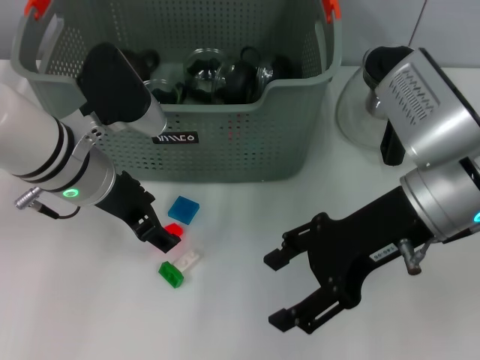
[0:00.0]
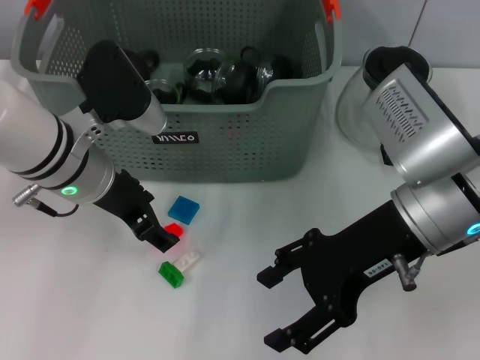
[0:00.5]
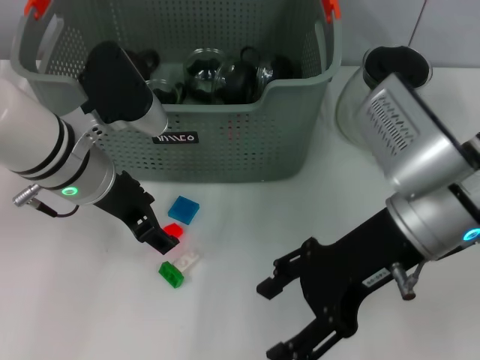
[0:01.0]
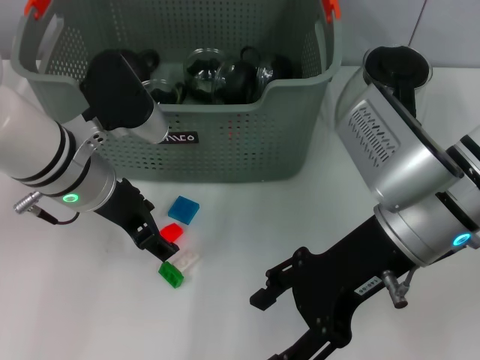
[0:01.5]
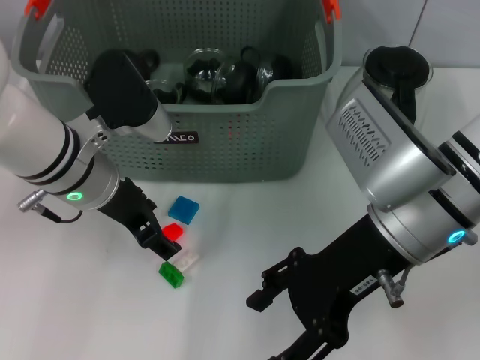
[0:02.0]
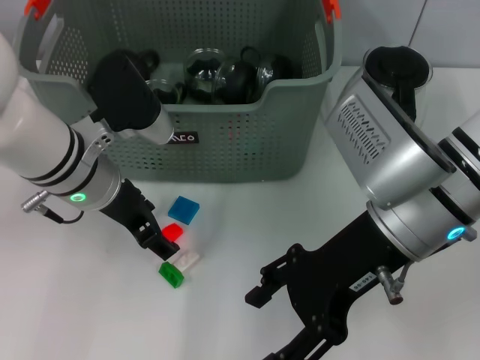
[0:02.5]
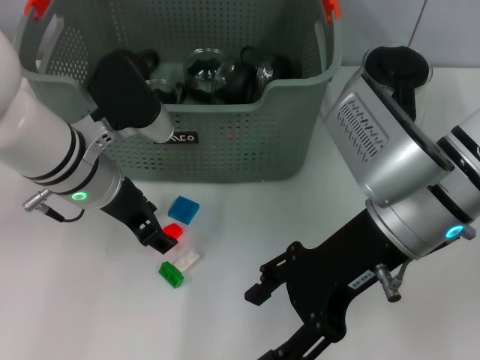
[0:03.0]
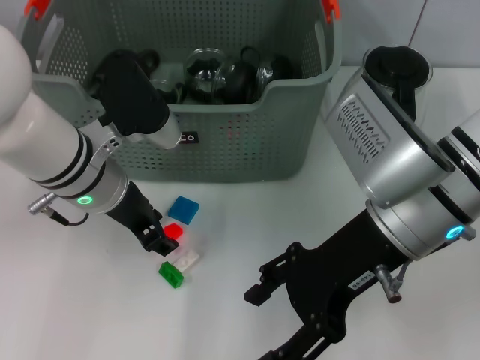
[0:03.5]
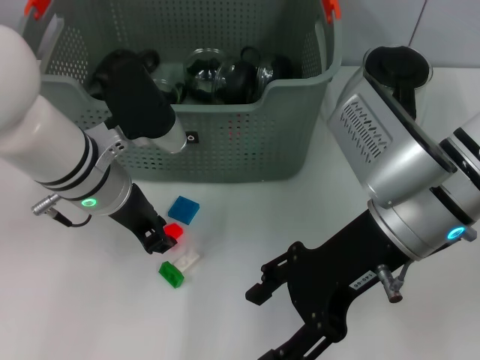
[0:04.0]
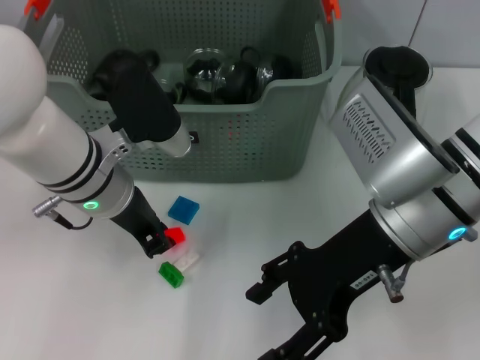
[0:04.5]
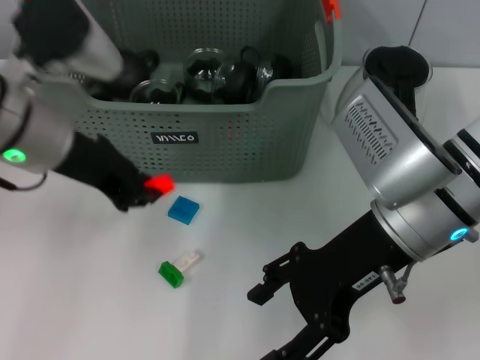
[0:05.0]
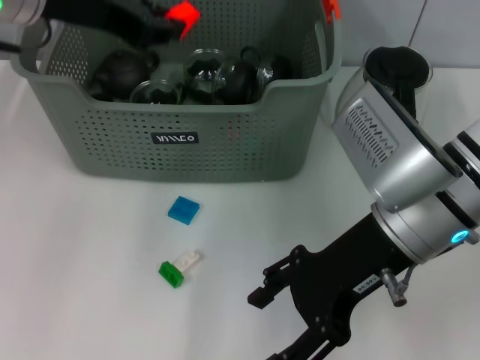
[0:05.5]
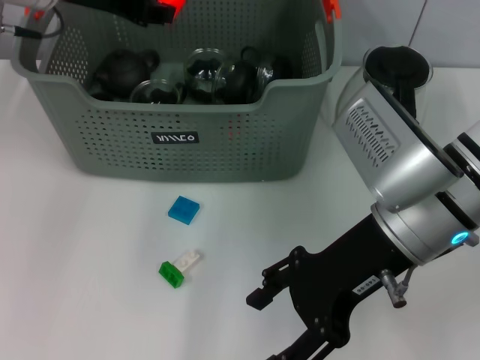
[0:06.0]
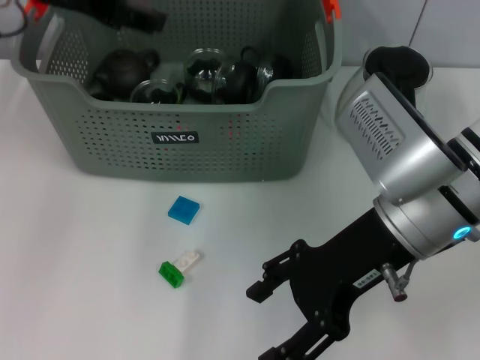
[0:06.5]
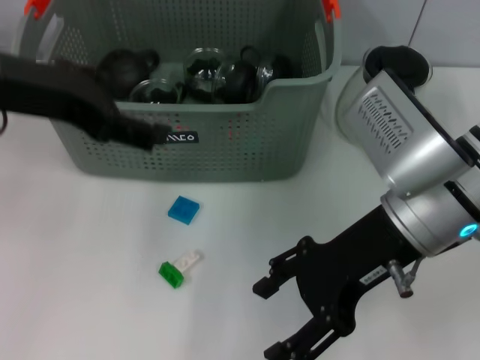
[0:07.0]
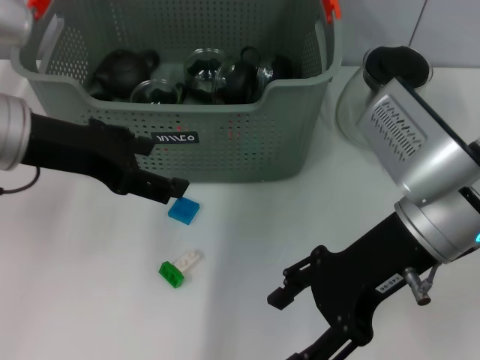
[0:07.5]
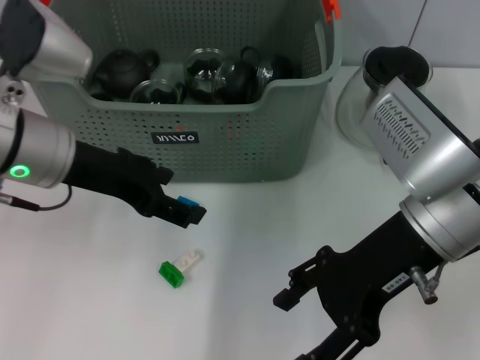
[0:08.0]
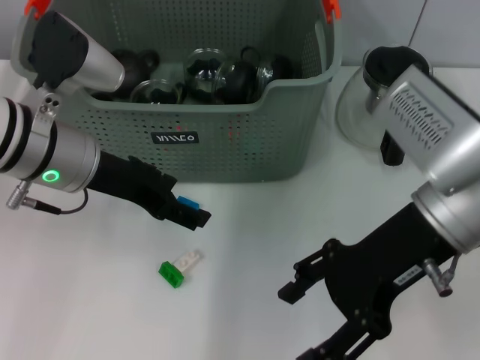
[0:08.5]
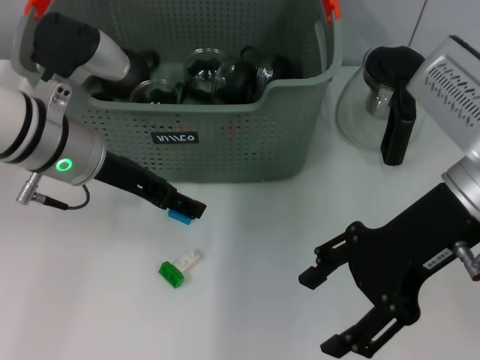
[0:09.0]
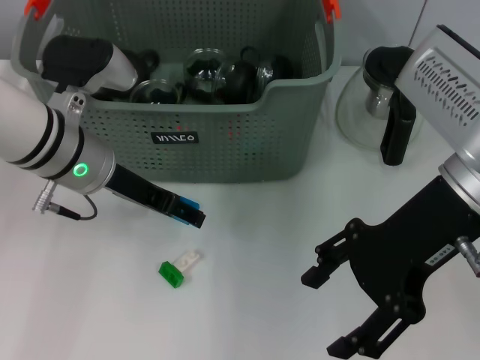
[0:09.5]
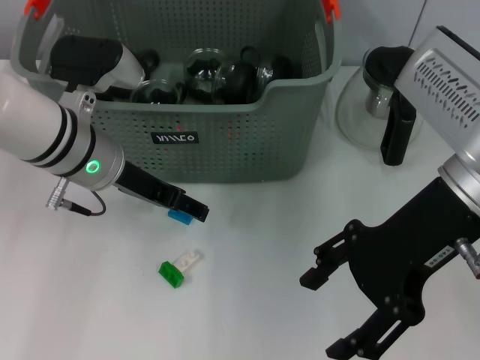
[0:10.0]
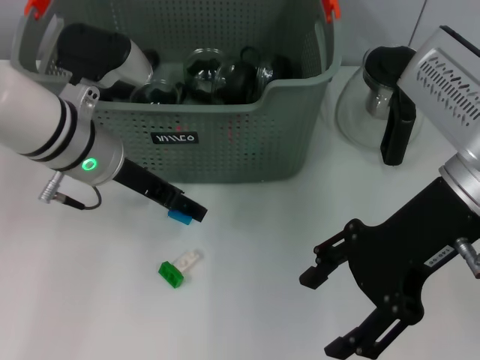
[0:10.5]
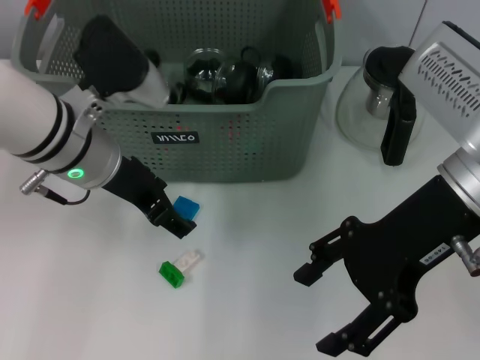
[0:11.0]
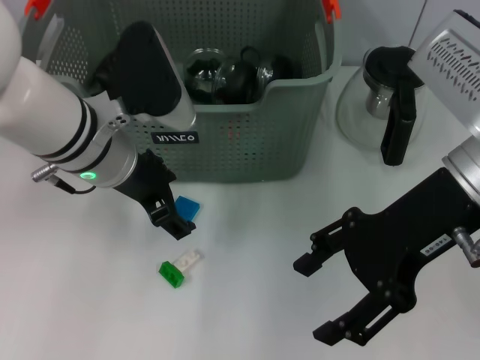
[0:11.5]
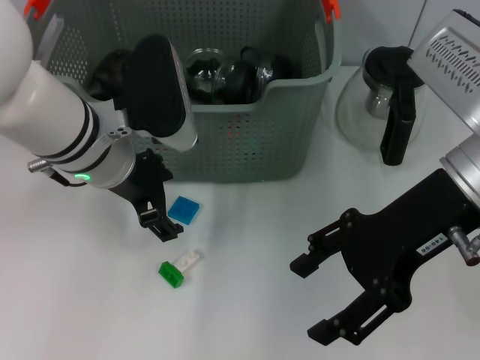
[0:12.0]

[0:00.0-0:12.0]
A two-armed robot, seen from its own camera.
Task of the whole recording: pick up the teacup on the table and place it into the storage bin, pick up the block on the table and place it into the storage bin.
Step, 0:00.0 to 0:04.0: Grasp the orange block with left gripper.
Step, 0:04.5 to 0:06.0: Place the orange block in the storage box with left gripper.
0:00.0 to 0:02.0: There are only small adjustments of the grippers.
0:02.0 to 0:04.0: The left gripper closes its fingers.
0:04.0 to 0:06.0: The left gripper heads upward and forward, covering some 15 cm.
0:06.0 to 0:08.0: The left gripper moves backward and downward, roughly 15 cm, and opens its fingers.
0:08.0 to 0:10.0: The left gripper travels downward by some 5 cm.

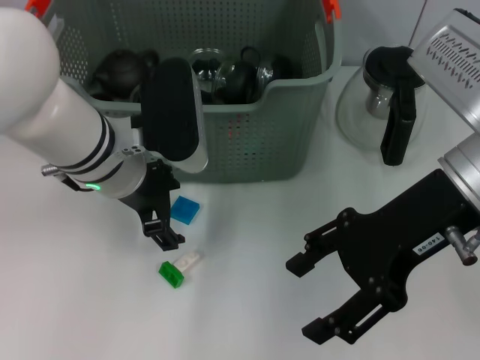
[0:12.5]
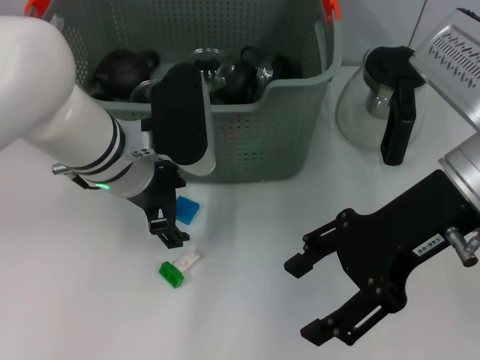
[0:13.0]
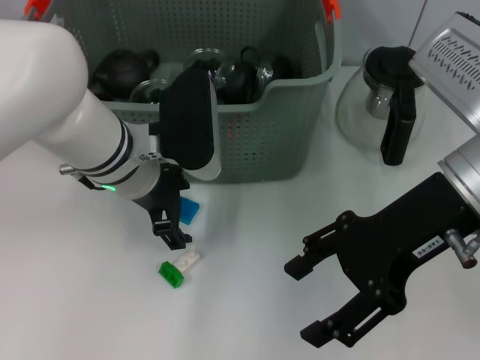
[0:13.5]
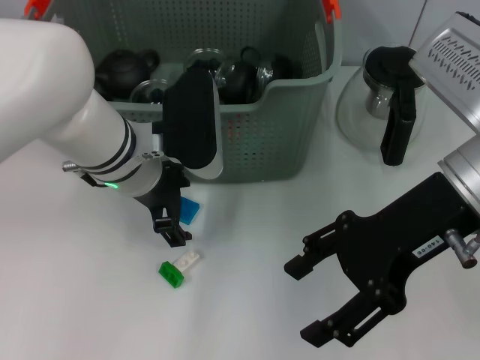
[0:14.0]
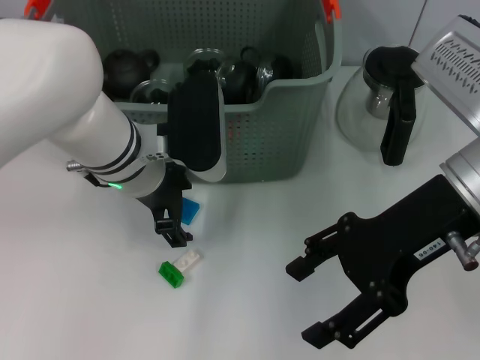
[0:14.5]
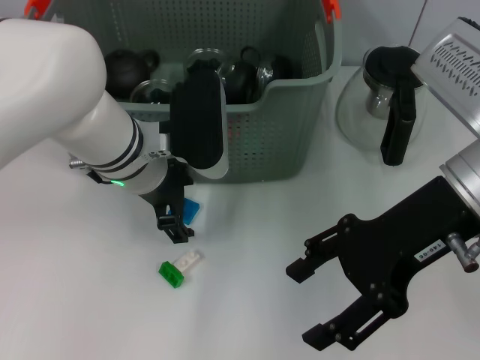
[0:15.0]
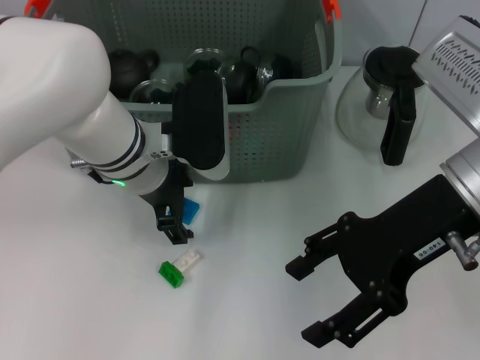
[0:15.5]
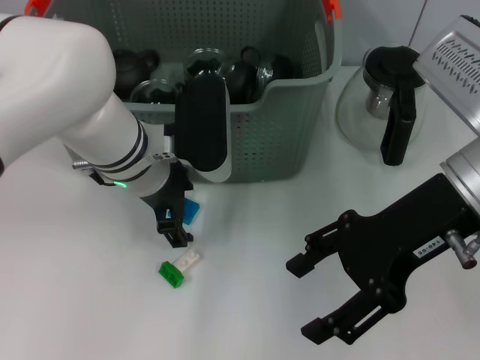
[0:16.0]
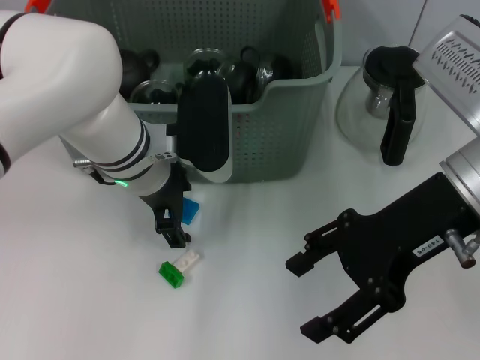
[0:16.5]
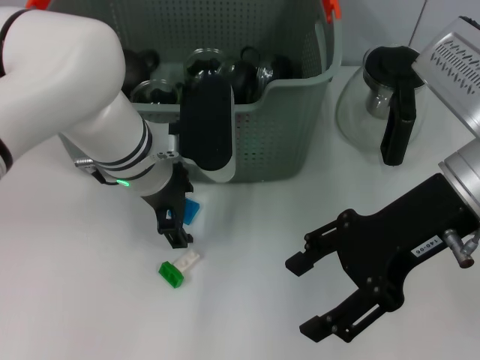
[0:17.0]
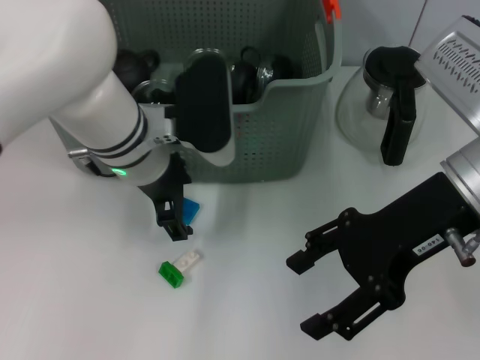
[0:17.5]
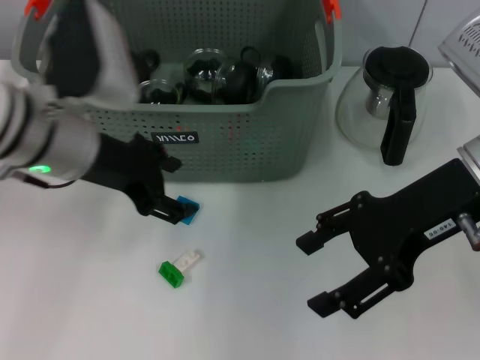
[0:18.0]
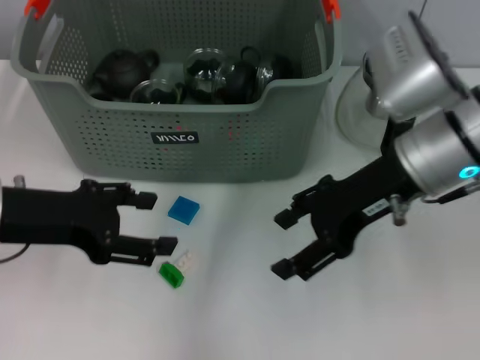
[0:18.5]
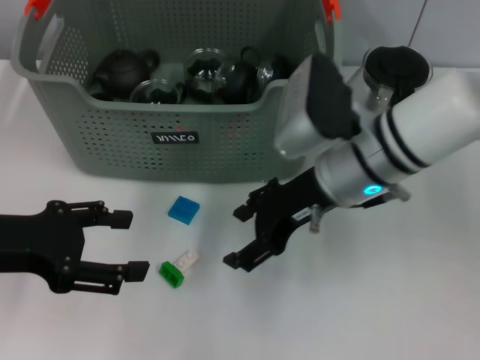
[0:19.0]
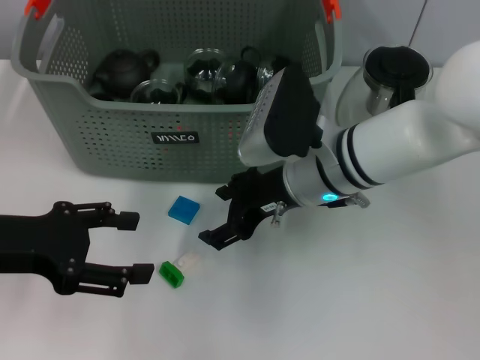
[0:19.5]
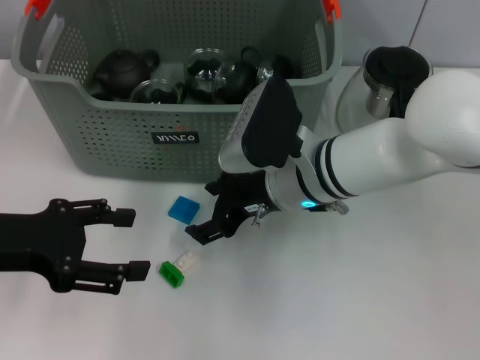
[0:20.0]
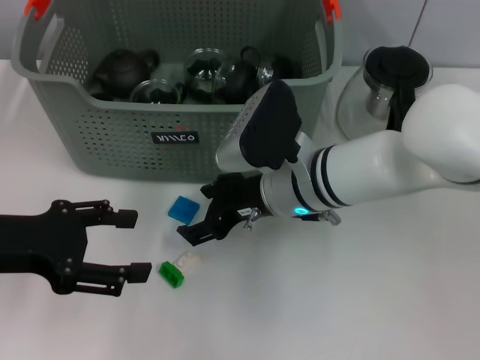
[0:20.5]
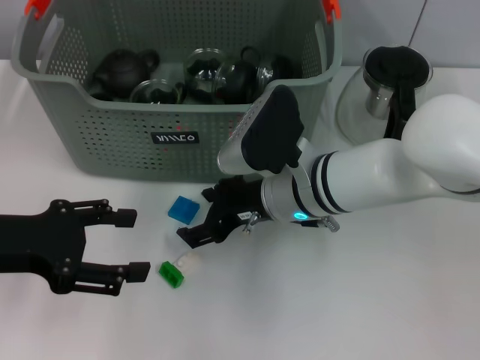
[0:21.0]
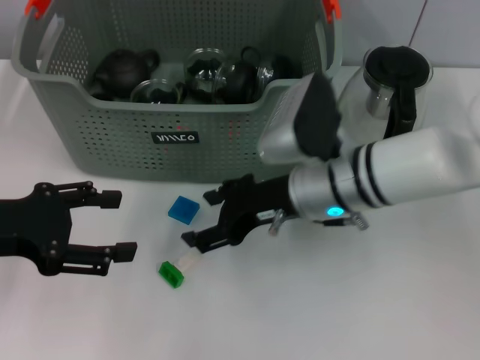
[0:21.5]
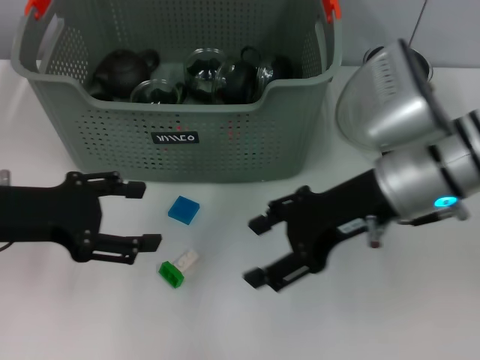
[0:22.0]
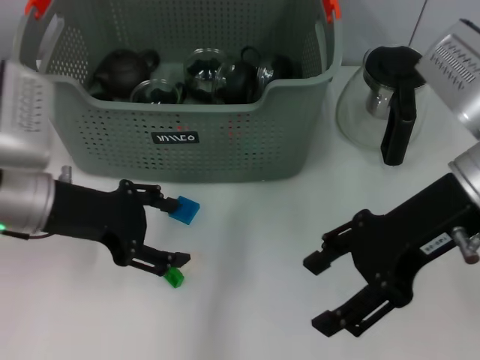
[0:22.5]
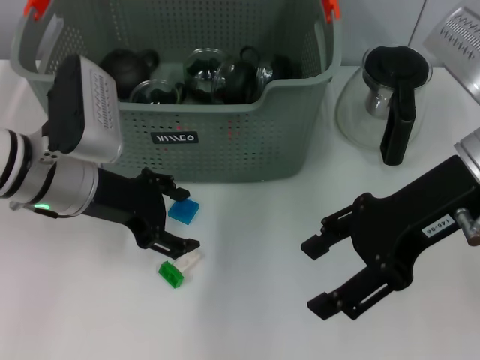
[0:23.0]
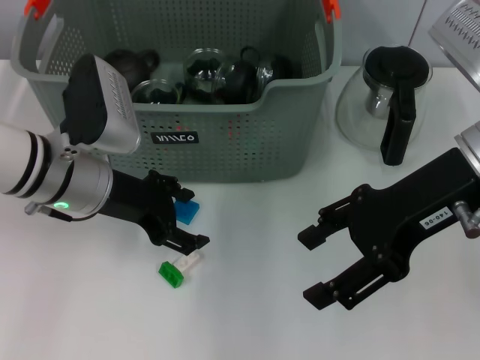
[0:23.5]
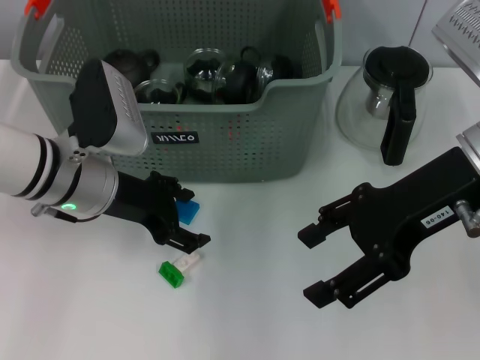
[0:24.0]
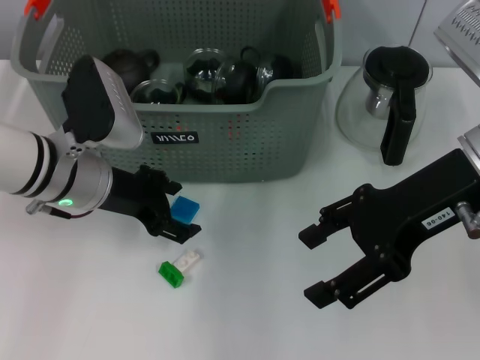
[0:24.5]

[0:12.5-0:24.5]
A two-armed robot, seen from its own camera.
Task of the whole recording: pick up the teacup on the table and place it into the storage bin, pick up the block on the table and place it into the storage bin.
0:12.5 to 0:14.5: The grippers make only small movements.
0:14.5 to 0:16.5: The two grippers keep their place.
0:16.5 to 0:18.5: The right gripper ends up roughly 5 cm from where it was. The left gripper heads to the left and backward, covering about 15 cm.
0:18.5 to 0:20.5: The right gripper is displaced to the left and downward by approximately 15 cm.
0:20.5 to 0:22.5: The right gripper moves to the right and upward, approximately 15 cm. Meanwhile the left gripper is displaced forward and to the right by about 10 cm.
0:22.5 to 0:24.5: The left gripper moves about 5 cm.

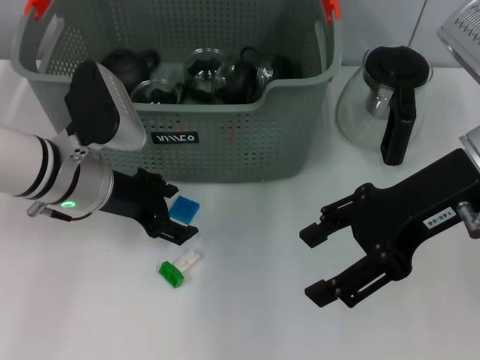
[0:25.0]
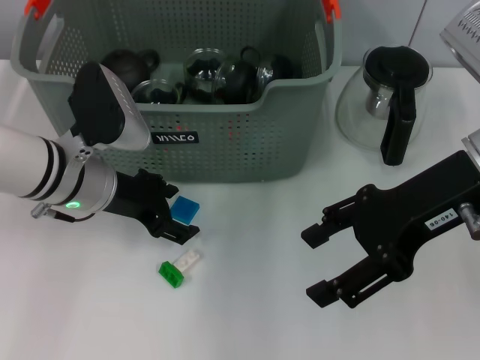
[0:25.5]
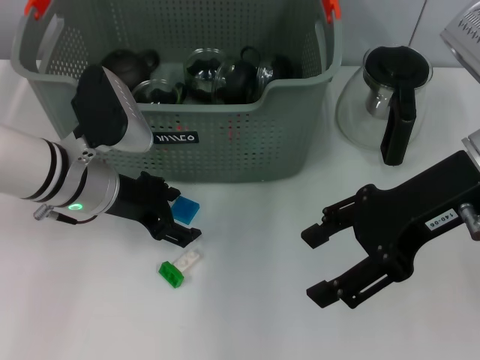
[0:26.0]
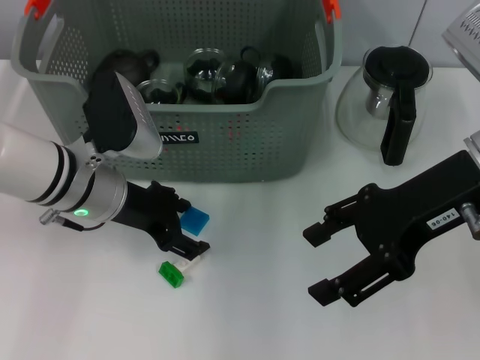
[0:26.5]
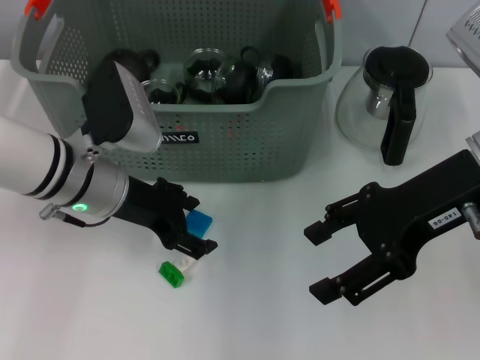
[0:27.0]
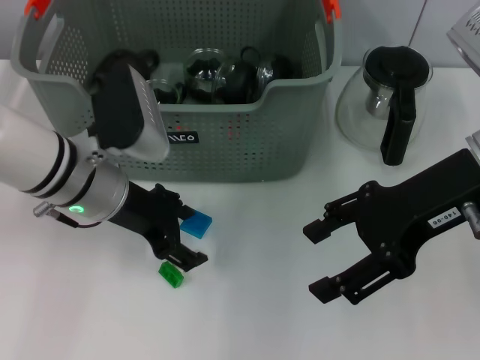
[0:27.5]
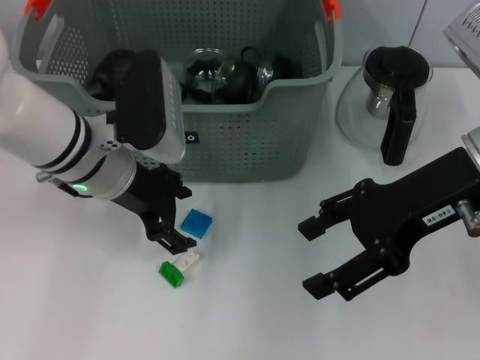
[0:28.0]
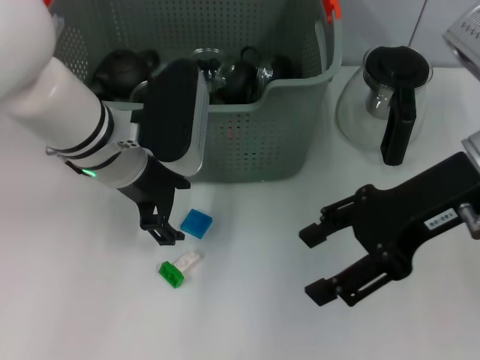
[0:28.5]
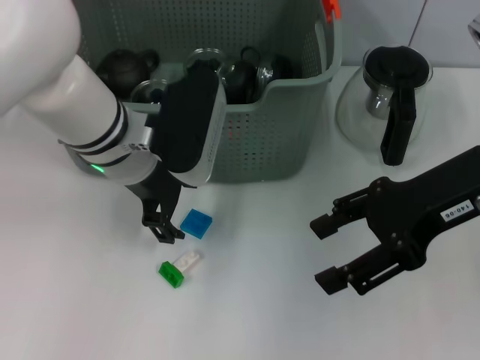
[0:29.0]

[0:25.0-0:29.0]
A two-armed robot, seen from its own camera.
Task of the whole recording: pick up the teacup on the table and place it into the storage bin, pick up the block on the table and place it into the storage bin.
0:25.0 to 0:27.0: The grippers make only small movements.
0:27.0 to 0:29.0: The left gripper changes place by some 5 cm.
